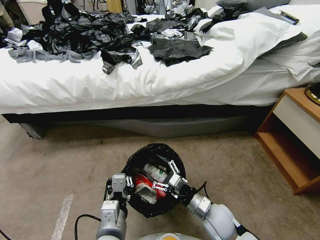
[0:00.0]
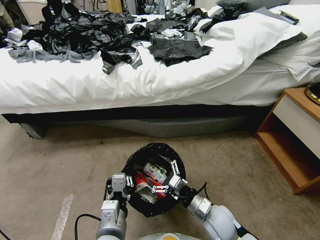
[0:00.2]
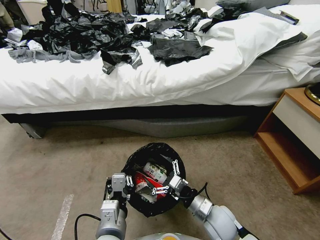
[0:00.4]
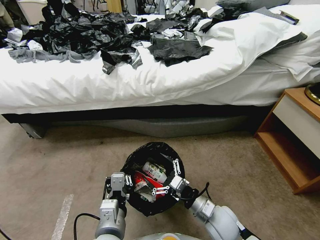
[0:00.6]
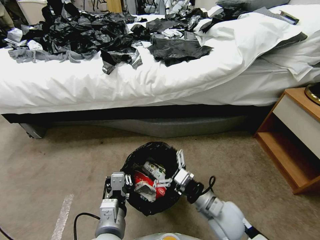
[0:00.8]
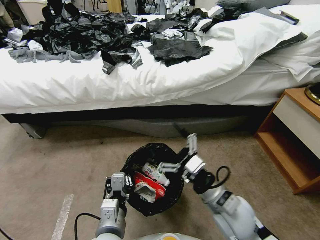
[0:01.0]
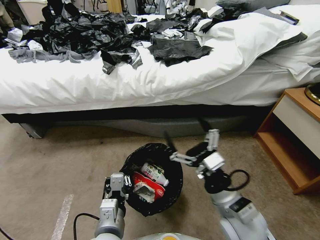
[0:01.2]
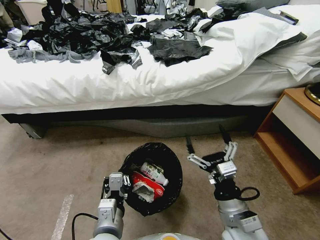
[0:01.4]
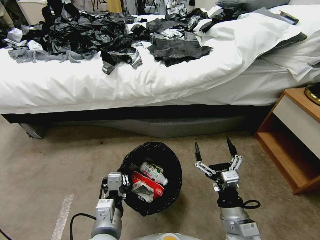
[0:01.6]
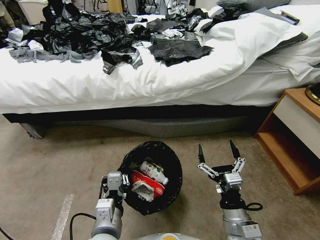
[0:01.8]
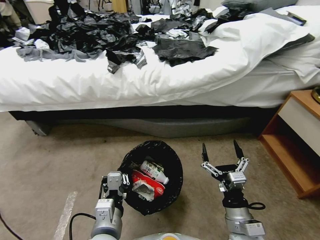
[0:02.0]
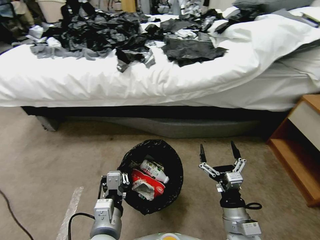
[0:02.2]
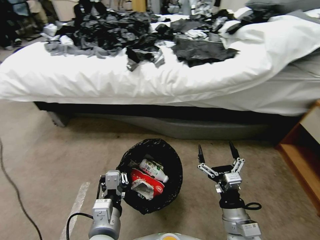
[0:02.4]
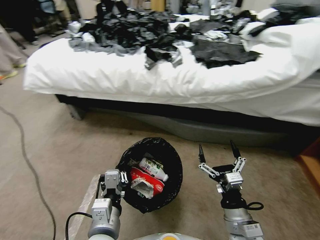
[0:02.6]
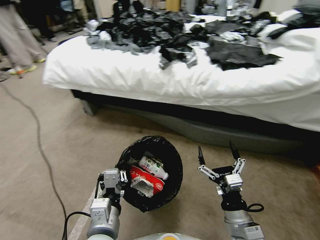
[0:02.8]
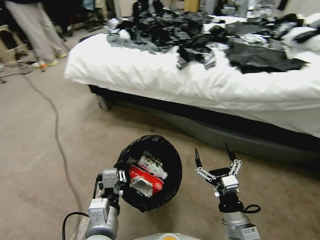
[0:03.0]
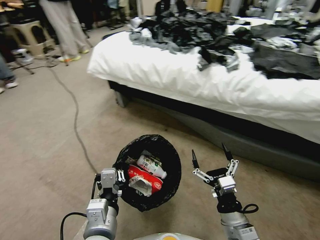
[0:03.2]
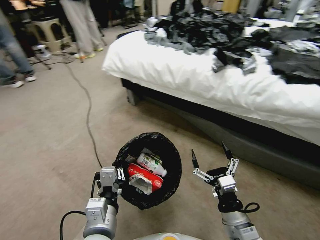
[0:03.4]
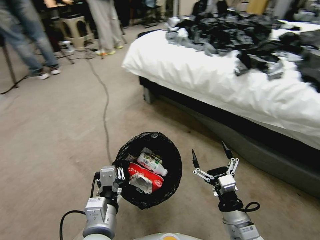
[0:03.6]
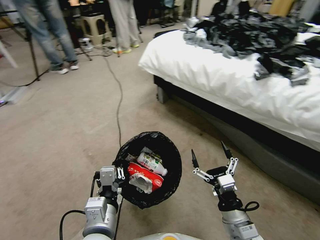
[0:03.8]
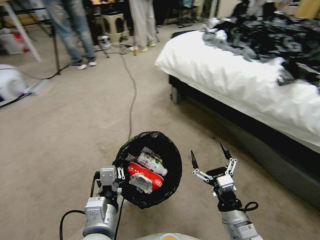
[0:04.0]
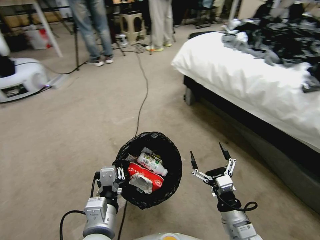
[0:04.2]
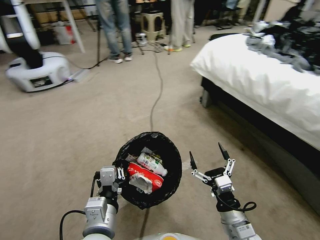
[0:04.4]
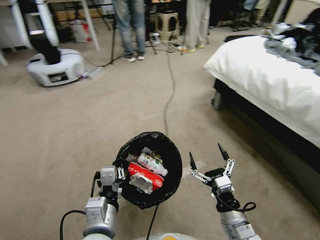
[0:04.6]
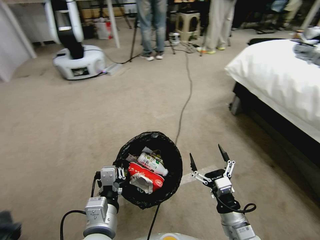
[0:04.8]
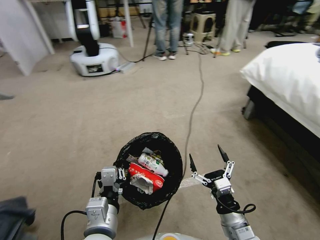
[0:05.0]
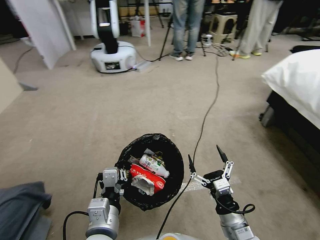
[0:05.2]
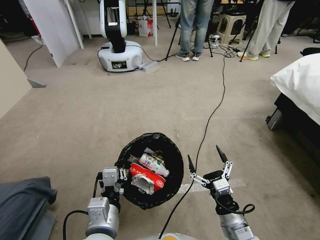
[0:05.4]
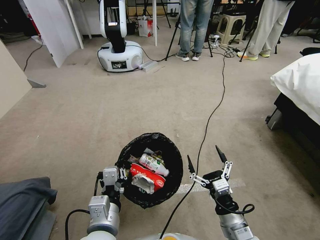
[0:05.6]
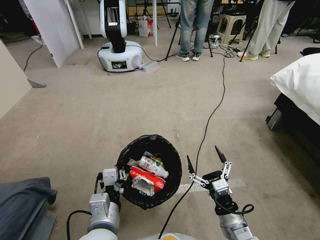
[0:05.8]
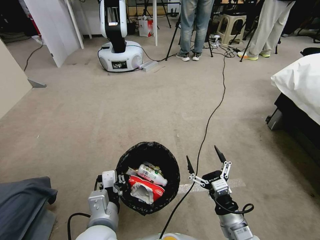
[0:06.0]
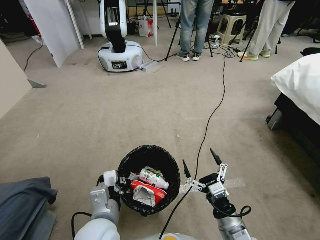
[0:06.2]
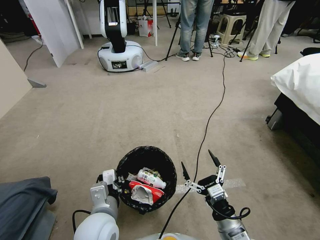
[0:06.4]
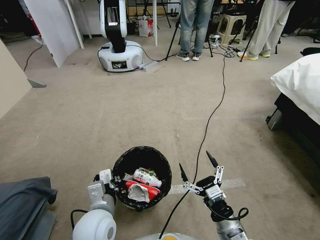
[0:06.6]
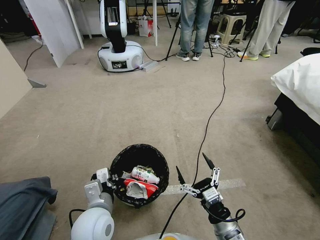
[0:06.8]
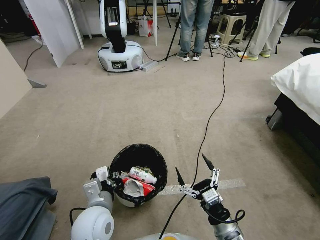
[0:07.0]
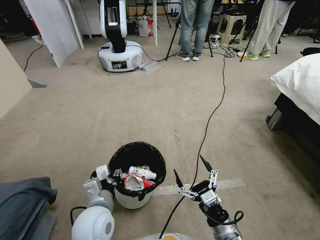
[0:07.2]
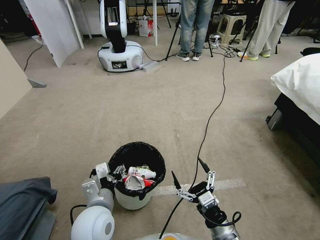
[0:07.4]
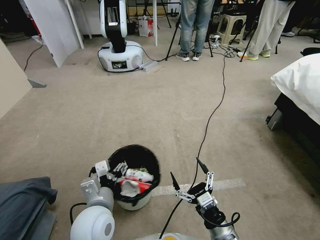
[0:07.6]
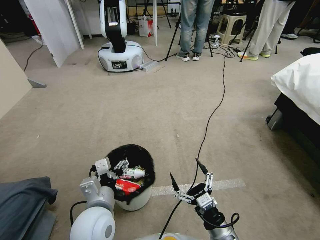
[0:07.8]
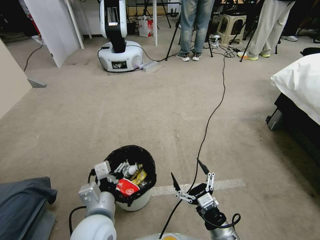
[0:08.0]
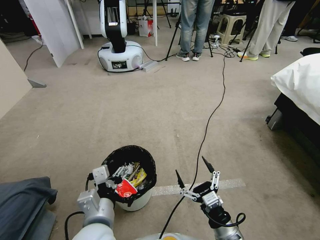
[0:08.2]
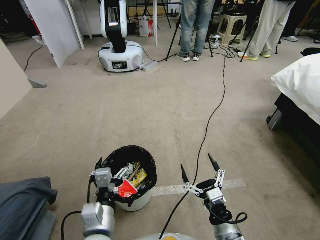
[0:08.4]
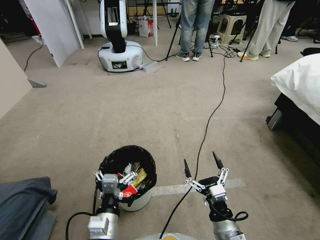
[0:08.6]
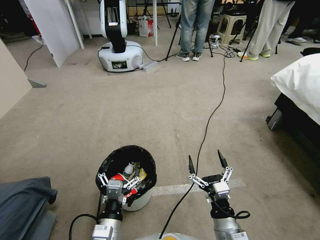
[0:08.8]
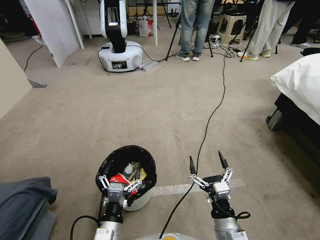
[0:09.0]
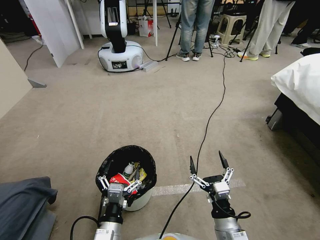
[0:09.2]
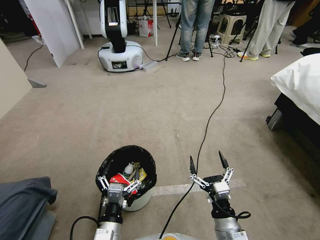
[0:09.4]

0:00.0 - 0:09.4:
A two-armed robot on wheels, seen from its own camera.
Task of the whole recording: Pick up the trash bin, then pick up the garbage from the floor and place it into the trash bin.
0:00.0 - 0:01.6: The right gripper shifts about 10 cm upward and backward.
0:06.2 - 0:07.8: The left gripper opens its fingers.
0:07.8 - 0:09.4: The left gripper travels downward and backward by about 10 cm.
